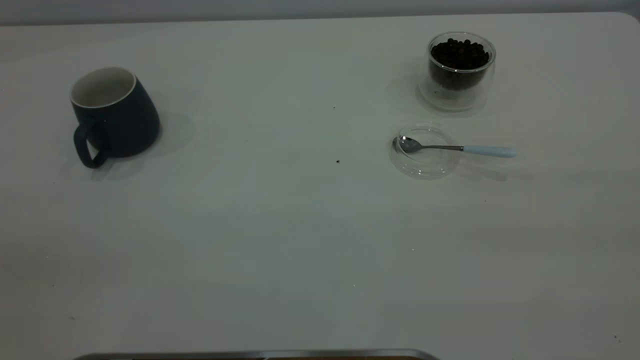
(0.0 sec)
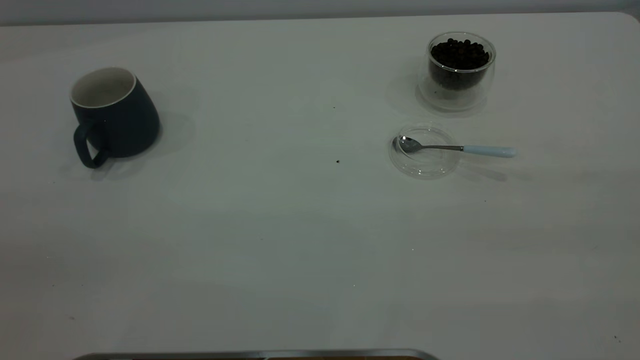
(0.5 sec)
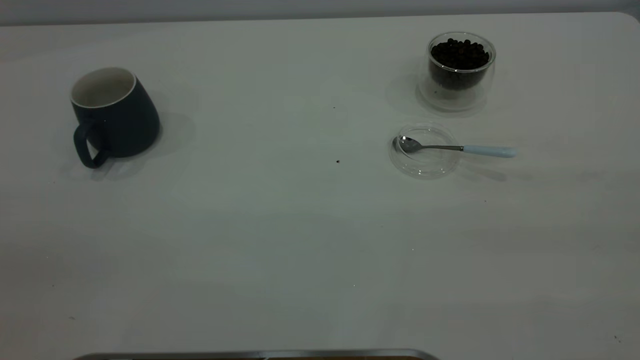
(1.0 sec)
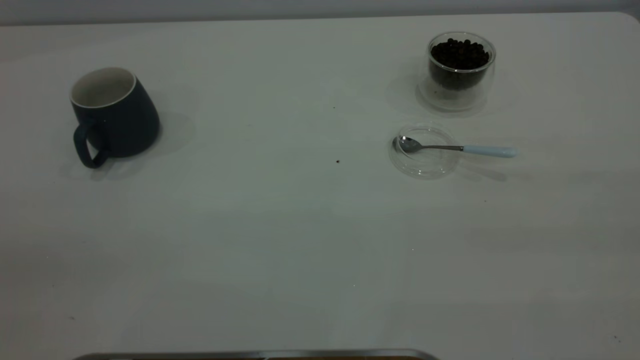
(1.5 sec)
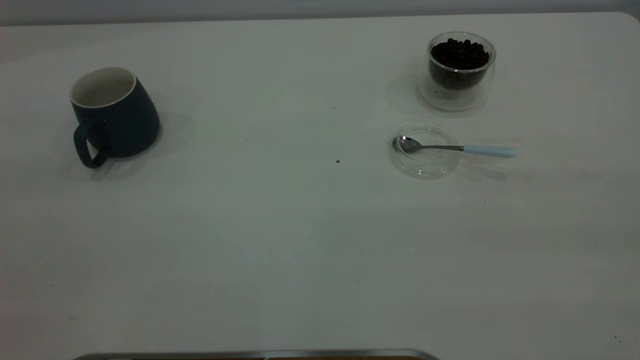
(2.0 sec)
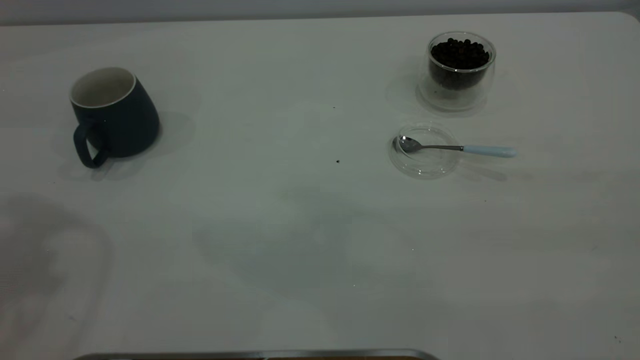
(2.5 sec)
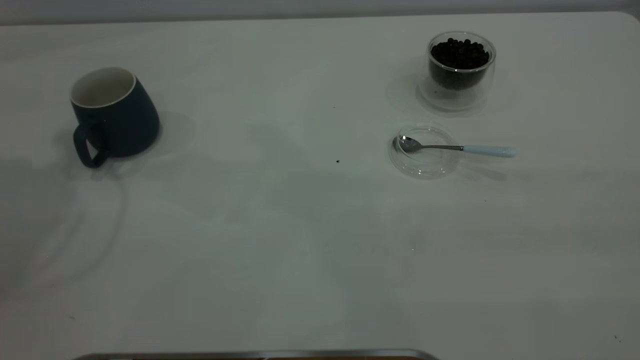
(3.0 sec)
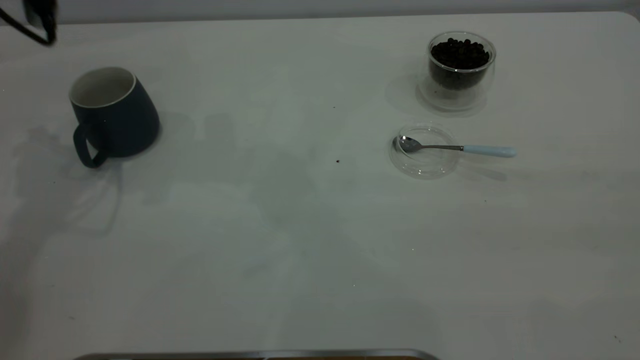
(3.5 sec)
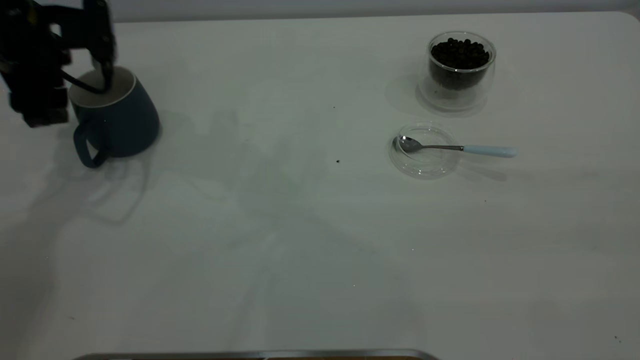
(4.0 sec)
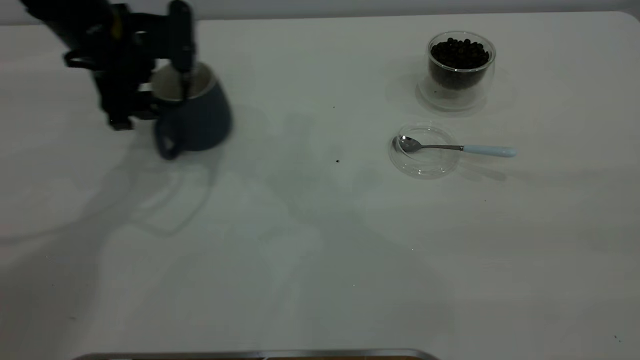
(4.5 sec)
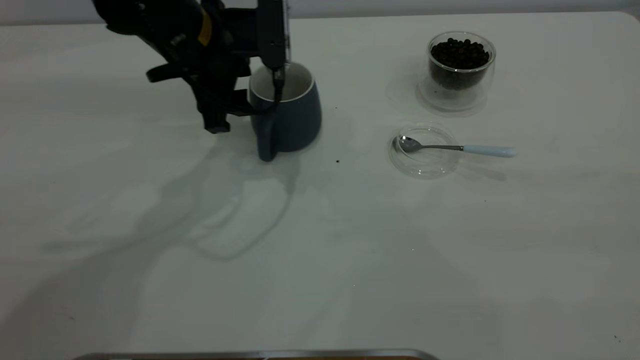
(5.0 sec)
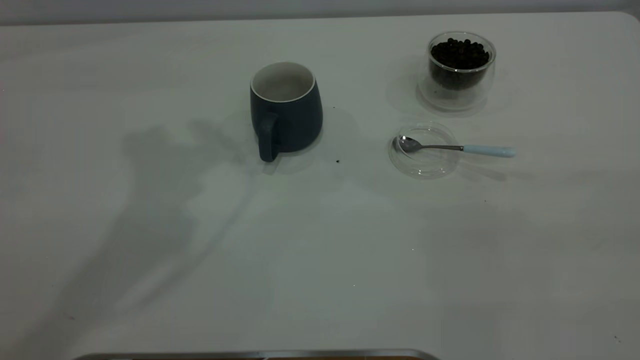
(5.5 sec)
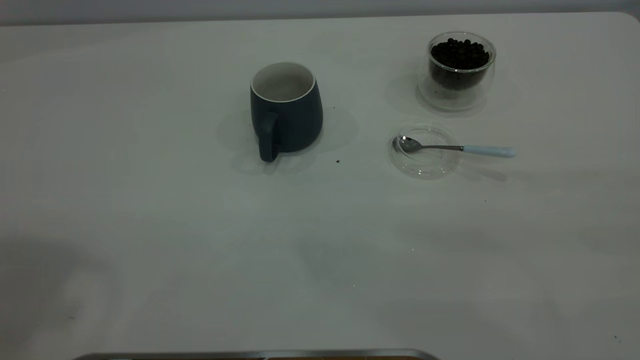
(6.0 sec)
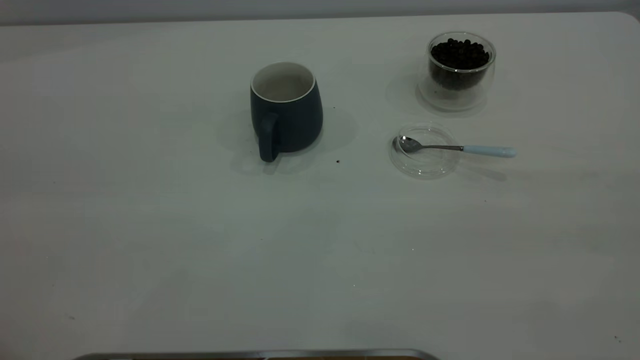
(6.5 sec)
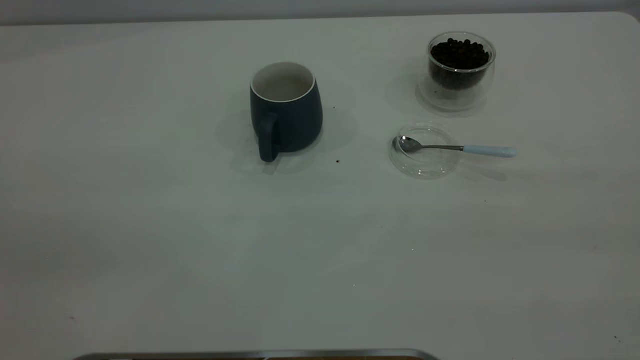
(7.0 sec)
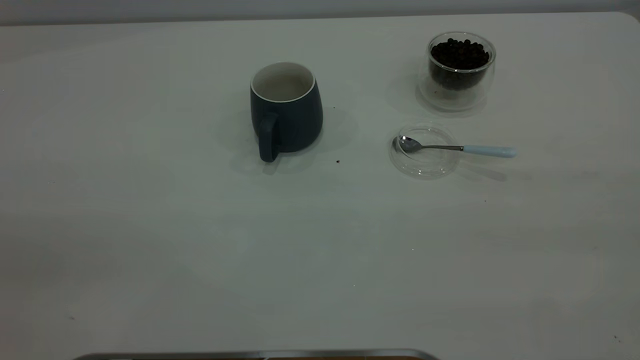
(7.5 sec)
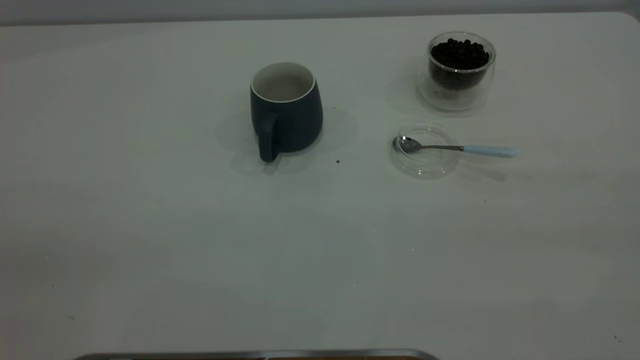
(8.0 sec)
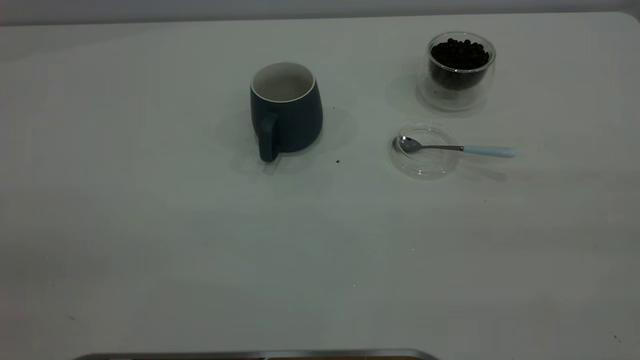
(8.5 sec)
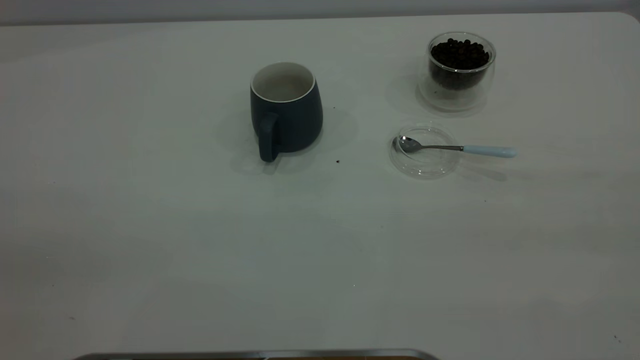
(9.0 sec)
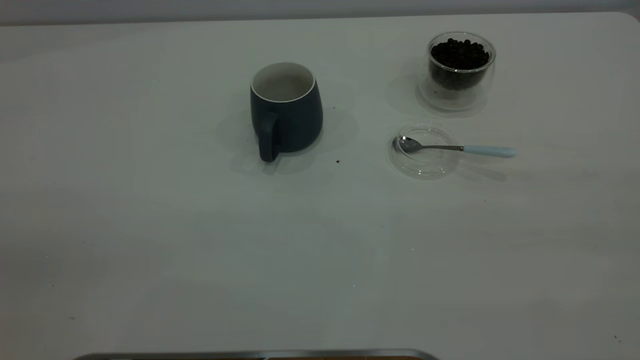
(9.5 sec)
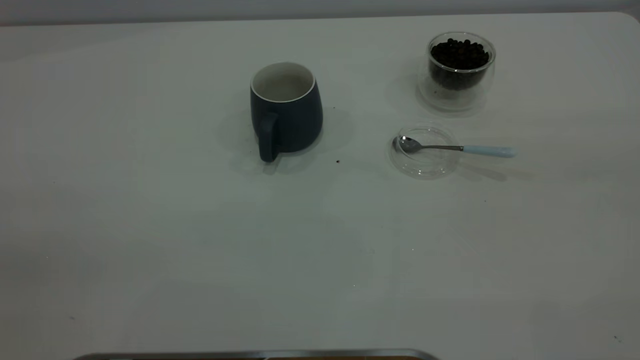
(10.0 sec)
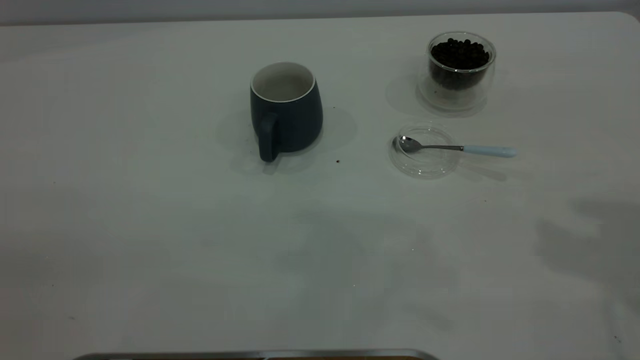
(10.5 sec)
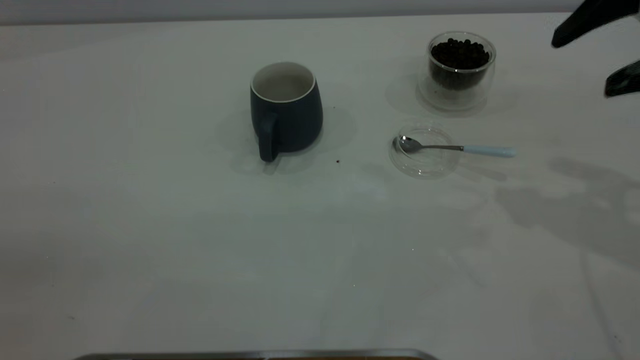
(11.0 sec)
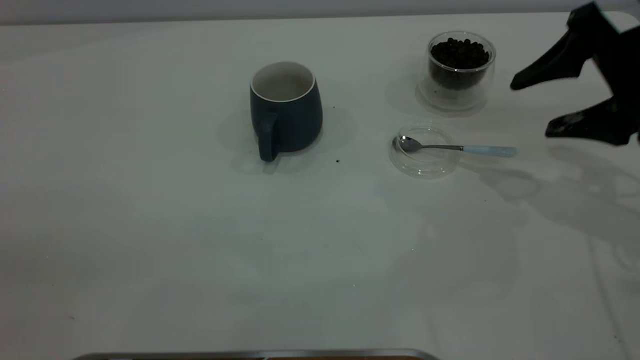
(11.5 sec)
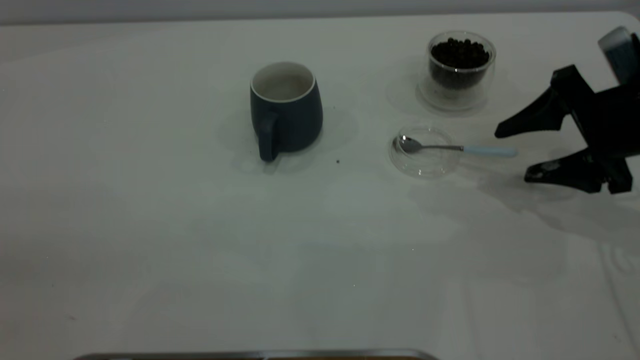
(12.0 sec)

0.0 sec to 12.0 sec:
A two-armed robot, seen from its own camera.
Task of the whole recording: the left gripper place the grey cup in the center of the table, the right gripper take the blue spoon from the cup lid and scoop out the coffee beans from the coffee cup and put them into the grey cup, the right gripper put the spoon back into the cup lid.
Step, 0.0 sec to 5.0 sec: Move the cup to the center of view.
2.0 sec to 4.0 sec: The left gripper moves forward and downward, about 40 cm.
4.0 sec to 6.0 sec: The left gripper is displaced upward and backward by approximately 40 cm.
10.0 sec to 12.0 sec: The right gripper shifts roughly 40 cm downward and forward.

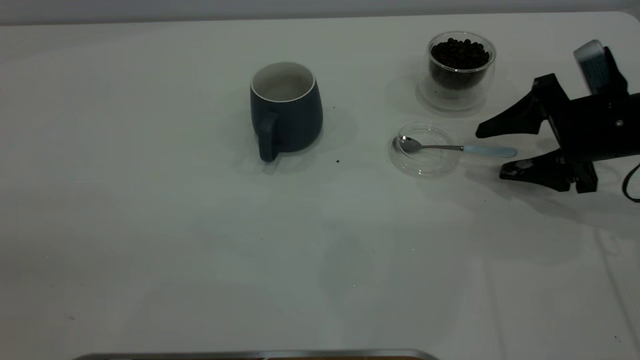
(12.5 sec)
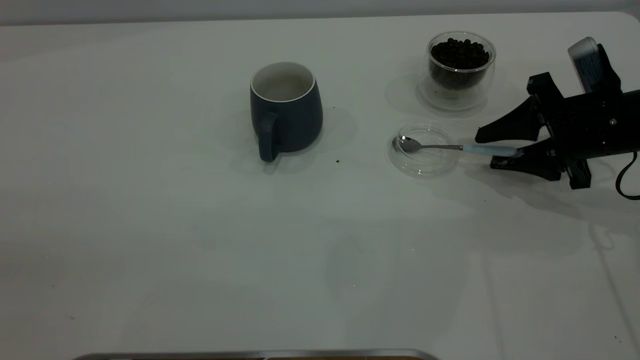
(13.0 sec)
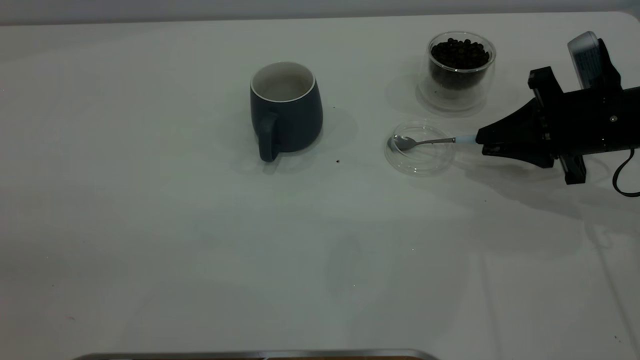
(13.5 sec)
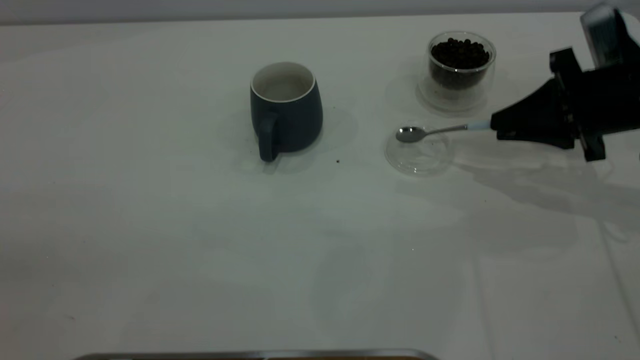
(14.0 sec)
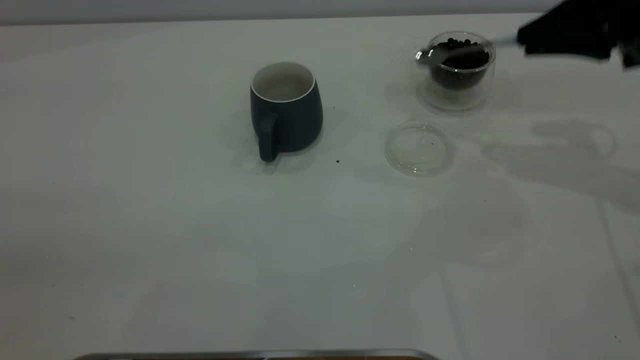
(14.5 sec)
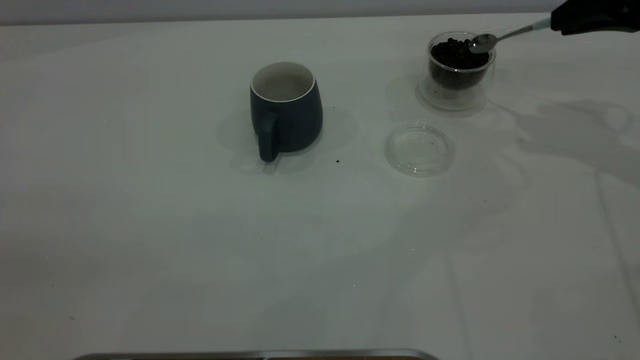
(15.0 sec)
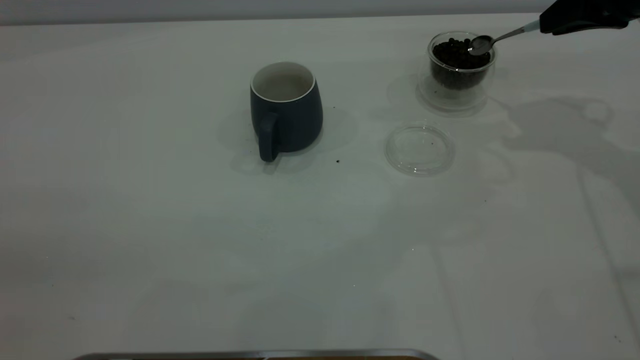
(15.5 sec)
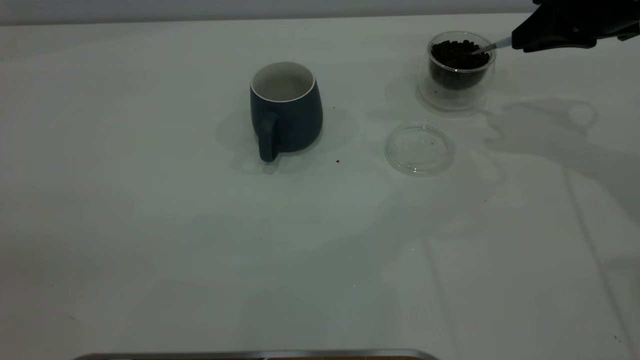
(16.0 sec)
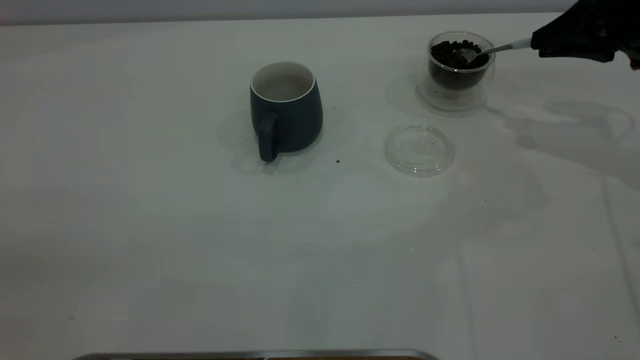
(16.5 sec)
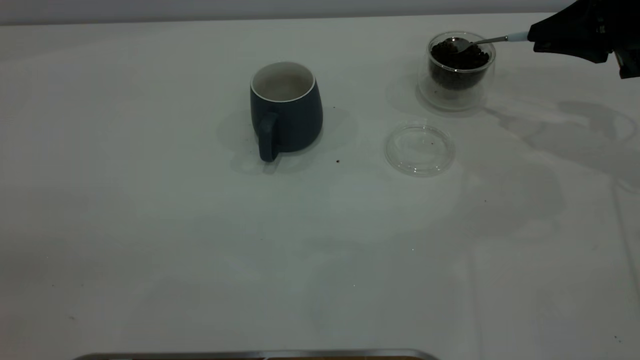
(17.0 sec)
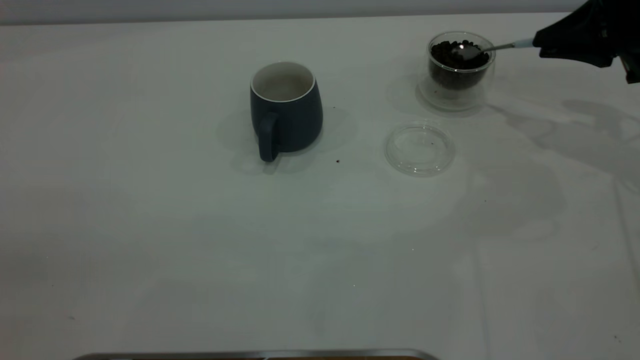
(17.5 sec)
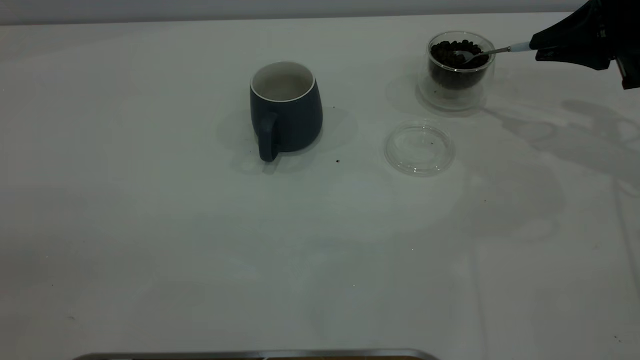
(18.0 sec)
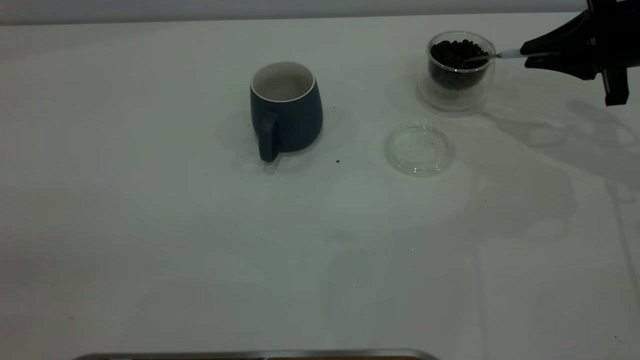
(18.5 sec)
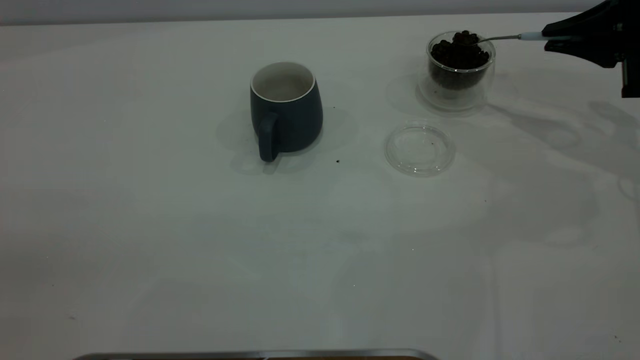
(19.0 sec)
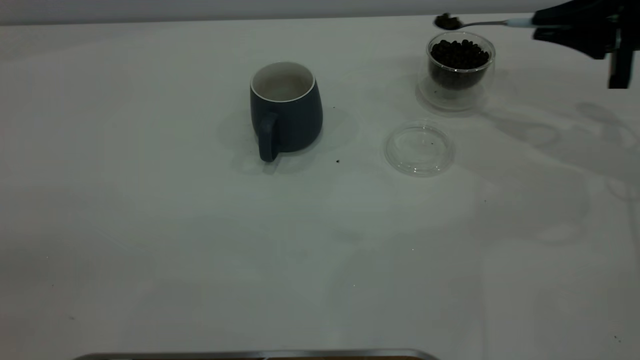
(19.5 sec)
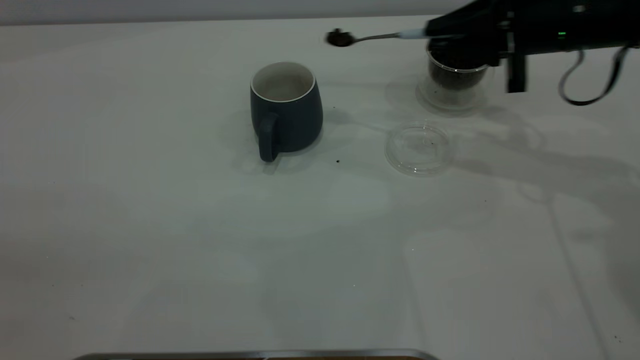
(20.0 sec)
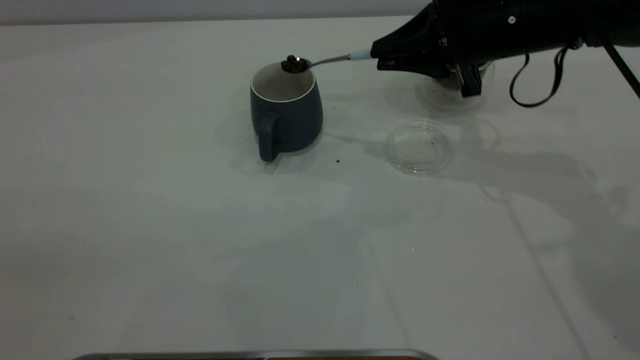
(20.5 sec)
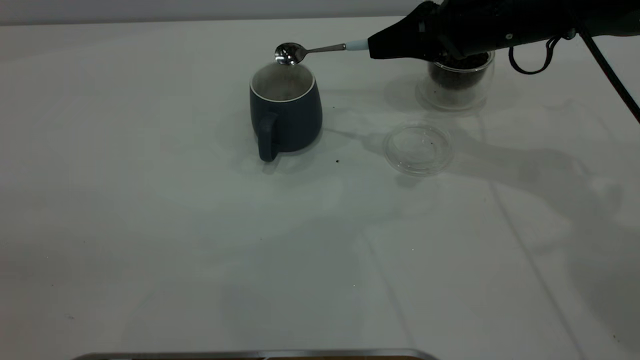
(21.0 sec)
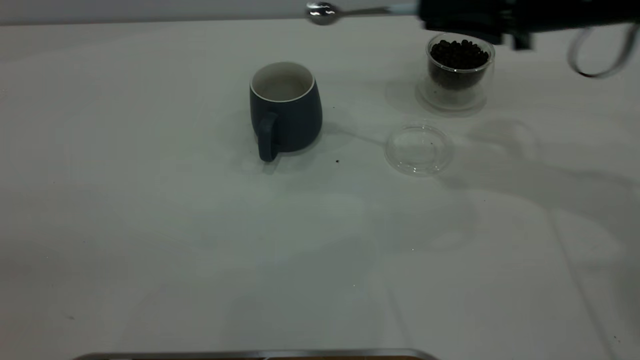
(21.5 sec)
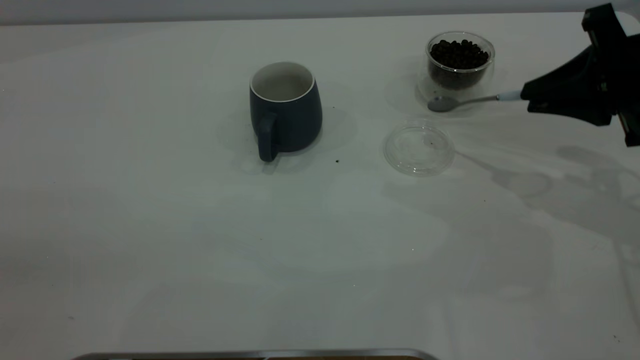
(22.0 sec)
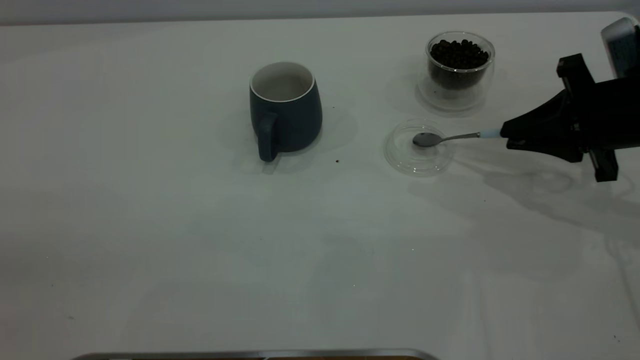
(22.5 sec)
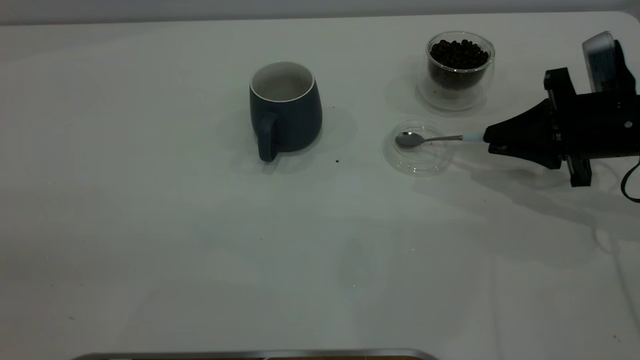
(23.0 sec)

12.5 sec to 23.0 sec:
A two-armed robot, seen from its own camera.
Task of the whole recording: the left gripper place the grey cup in the center of the table, the right gripper take the blue spoon from the cup lid and scoop out the coffee beans from the coffee cup and put them into the grey cup, the right gripper put the spoon back into the cup lid.
Step, 14.5 sec to 21.0 sec: Scoop a spoonful of beans into the cup.
12.5 sec to 14.5 sec: The right gripper goes approximately 10 cm upward, and closes its fingers.
14.5 sec to 16.5 sec: The right gripper ends up some 5 cm from where it was.
19.0 sec to 21.0 sec: The right gripper shifts approximately 20 cm to the left.
21.0 sec to 23.0 sec: The right gripper moves to the right, downward and backward, about 15 cm.
